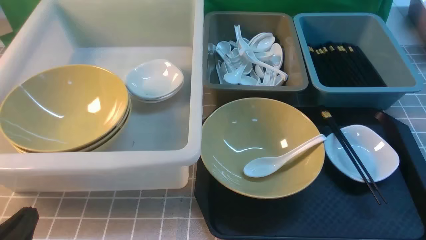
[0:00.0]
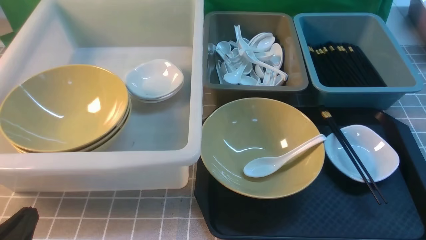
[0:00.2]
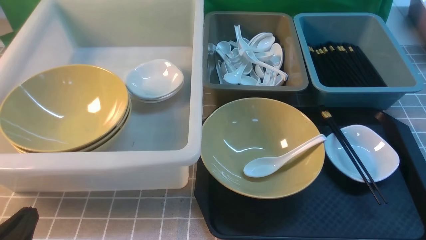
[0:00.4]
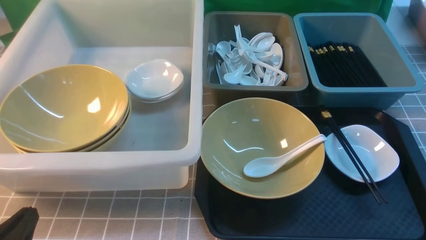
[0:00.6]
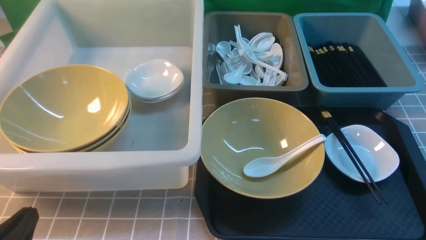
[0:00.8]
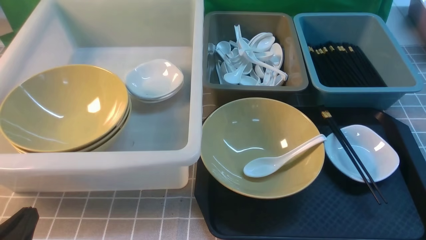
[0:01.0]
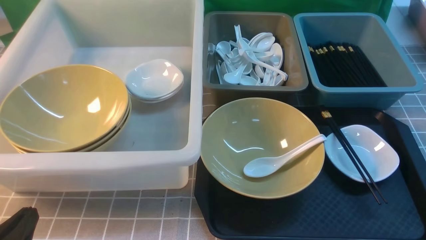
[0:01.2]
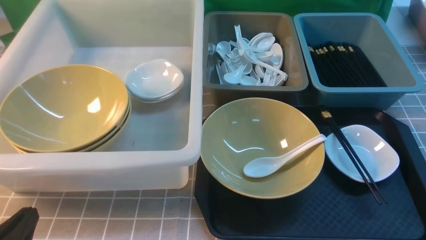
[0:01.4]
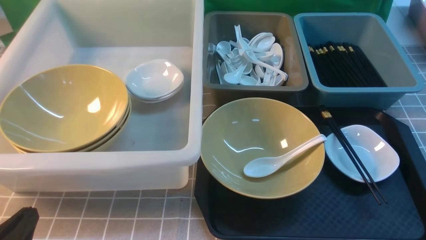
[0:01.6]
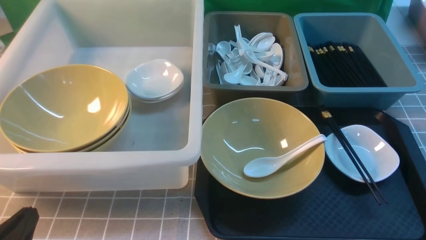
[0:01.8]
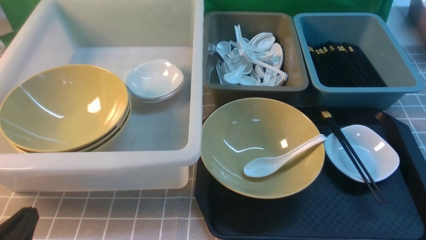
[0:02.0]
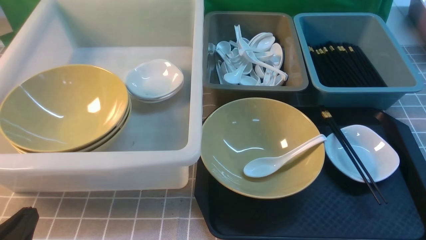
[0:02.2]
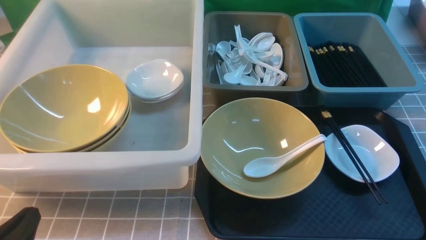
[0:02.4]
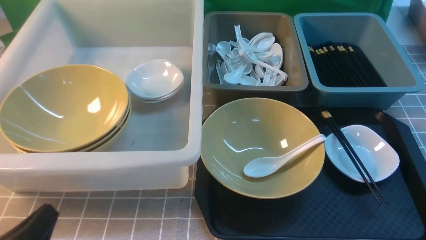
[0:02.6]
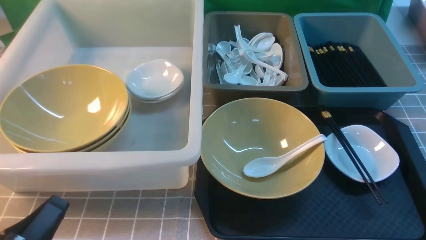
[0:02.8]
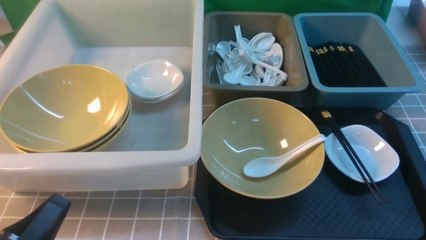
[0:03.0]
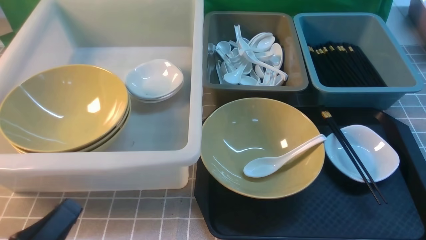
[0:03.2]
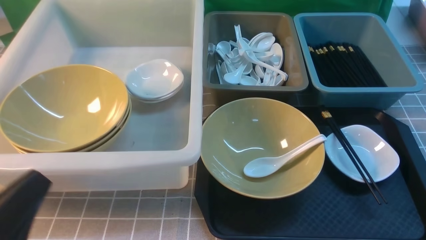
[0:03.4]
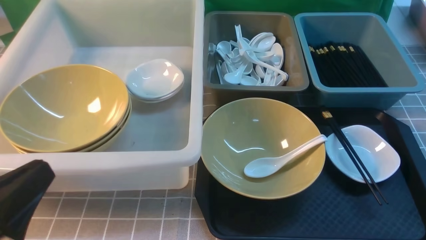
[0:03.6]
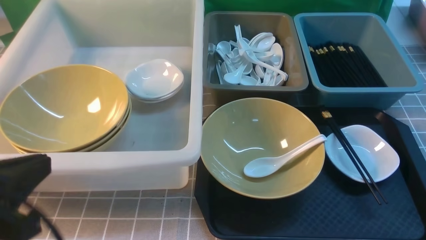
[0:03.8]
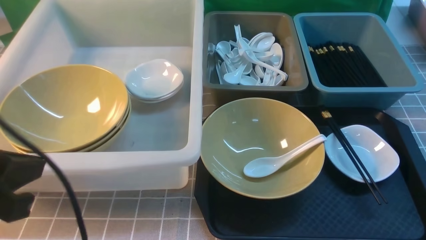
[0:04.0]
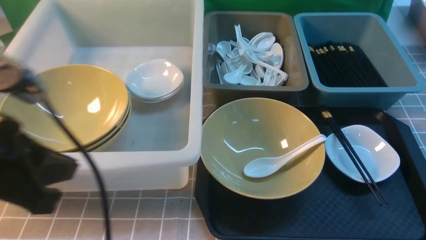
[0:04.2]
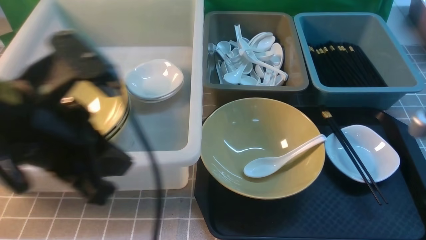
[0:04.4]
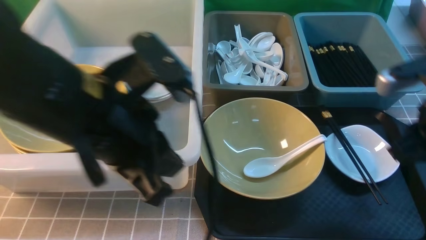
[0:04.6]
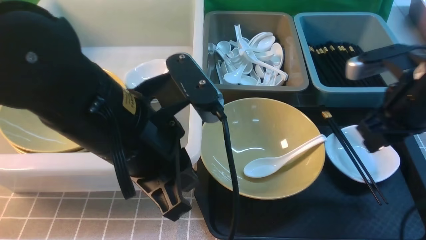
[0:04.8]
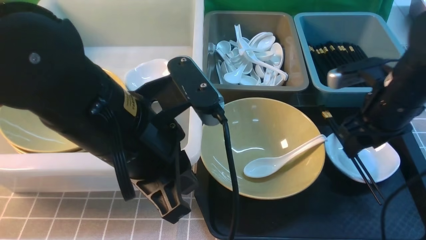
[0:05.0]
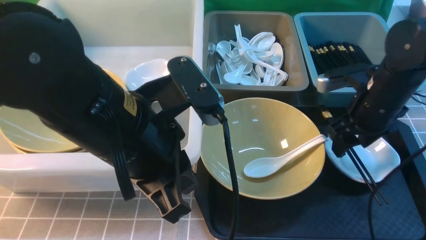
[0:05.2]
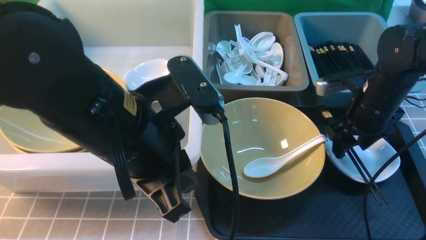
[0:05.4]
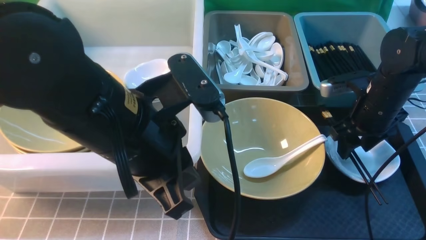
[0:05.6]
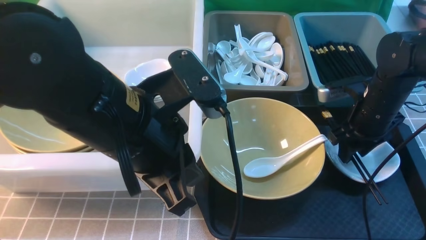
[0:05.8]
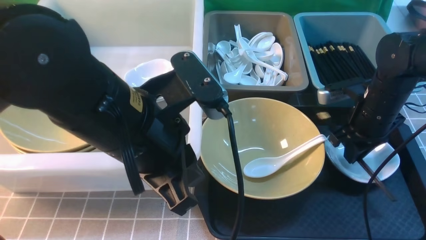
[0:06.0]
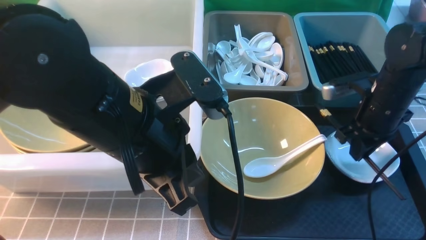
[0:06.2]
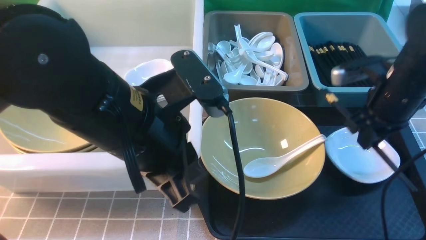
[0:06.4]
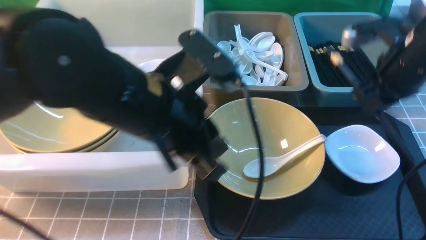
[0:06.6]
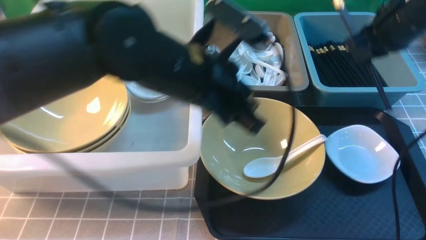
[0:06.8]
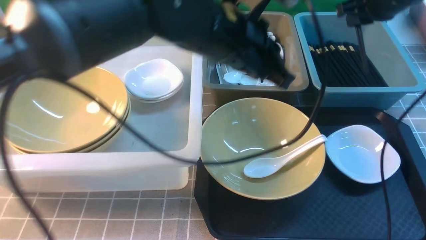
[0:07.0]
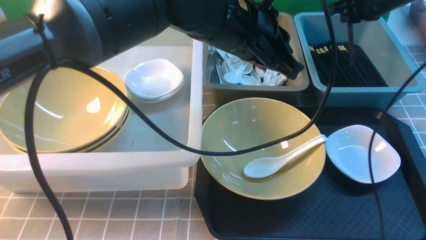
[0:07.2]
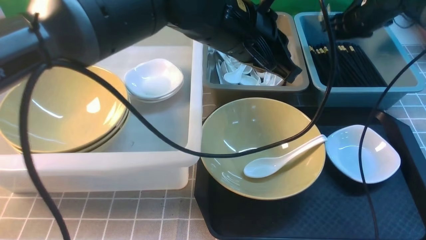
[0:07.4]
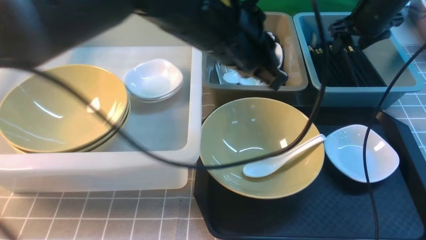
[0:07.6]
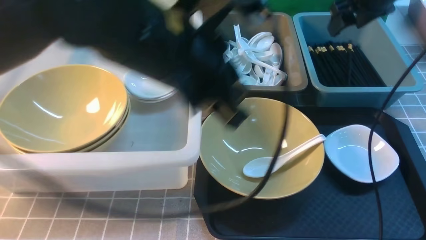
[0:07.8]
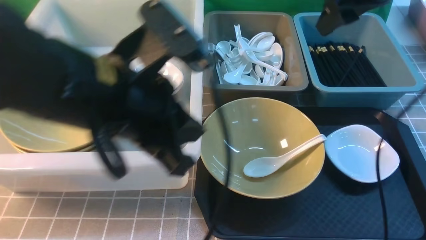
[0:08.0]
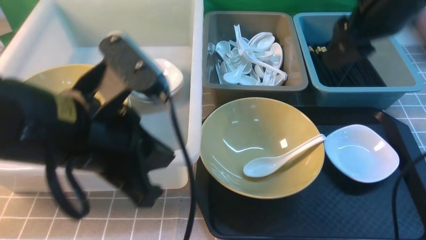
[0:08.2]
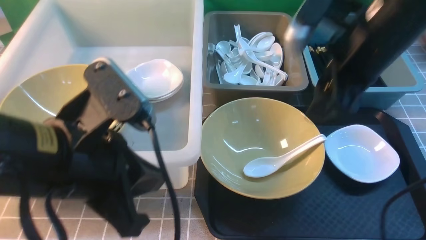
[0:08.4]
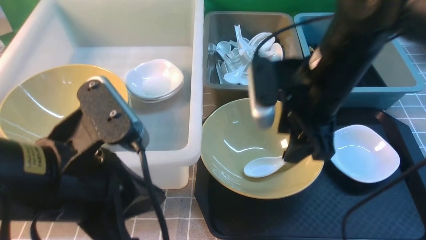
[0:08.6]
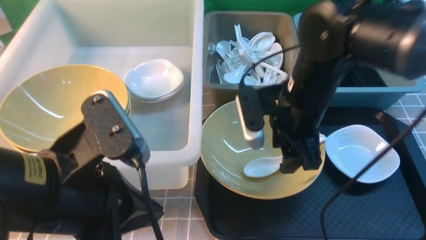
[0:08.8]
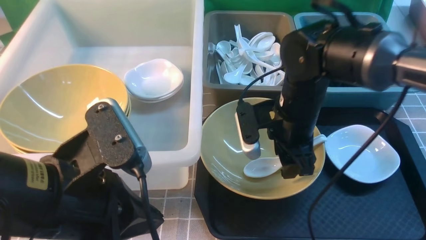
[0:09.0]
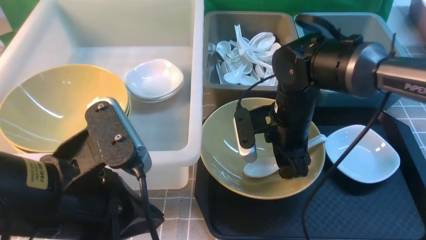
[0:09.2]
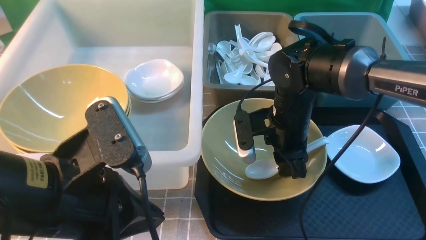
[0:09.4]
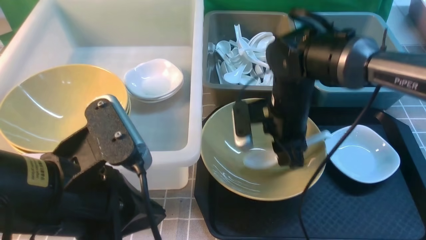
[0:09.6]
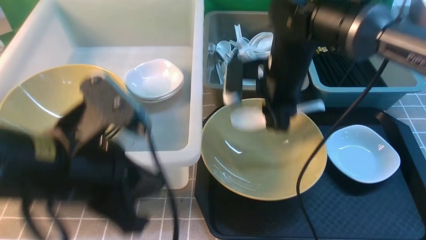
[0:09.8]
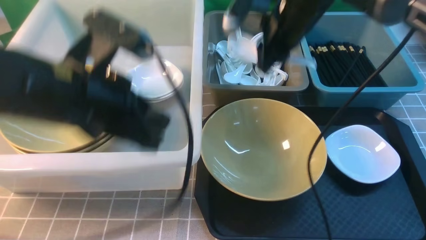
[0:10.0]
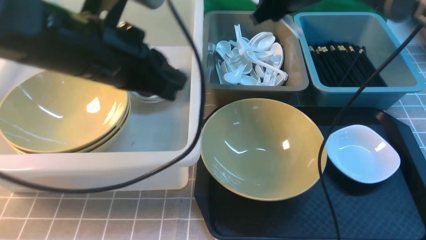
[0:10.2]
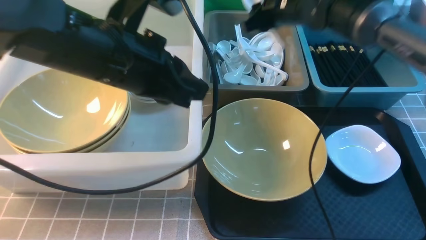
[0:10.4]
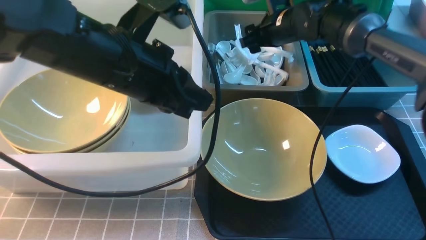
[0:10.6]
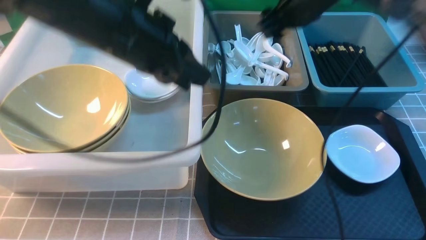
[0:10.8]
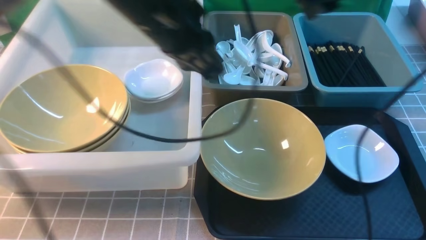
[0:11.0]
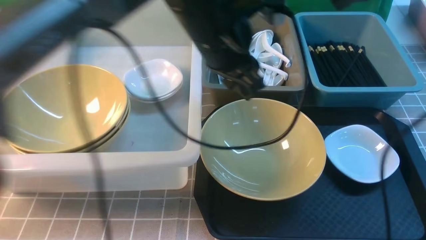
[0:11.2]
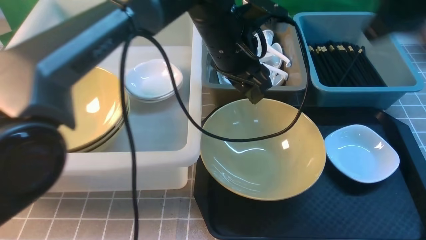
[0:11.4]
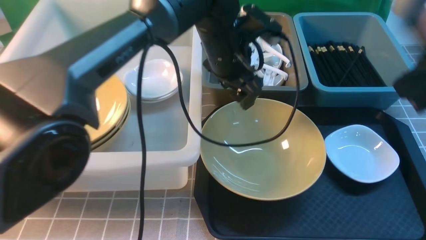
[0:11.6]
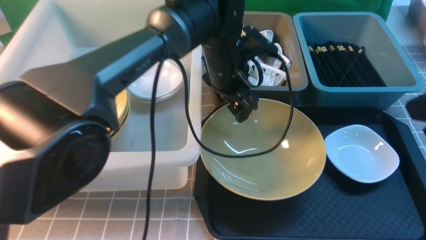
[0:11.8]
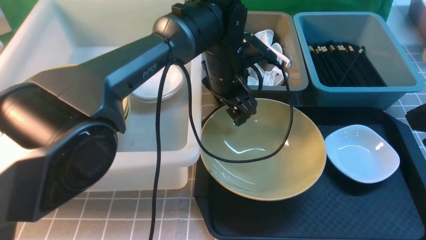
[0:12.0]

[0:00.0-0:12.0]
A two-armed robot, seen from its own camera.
Task of the whole recording: on grey table put chopsticks spoon bowls plates into blue grey white boxes.
Step, 0:00.0 to 0:06.2: use the right arm to grab the chopsticks.
Step, 0:06.4 to 0:07.8: use the right arm to put the chopsticks into the small storage box on the right.
Step, 0:08.0 to 0:10.0: use the right arm to grab the soup spoon in the middle.
Step, 0:10.2 to 0:10.8: use the right arm to put the soup spoon into the small storage box in the middle.
0:00.0 to 0:01.6: Both grippers stay put.
0:03.0 to 0:04.4: The right gripper is displaced forward and upward by some 20 cm, and closes up. The left gripper moves upward, forward and to the right, some 20 cm.
0:04.4 to 0:06.0: The left gripper heads to the right, covering roughly 5 cm; the right gripper shifts approximately 20 cm forward and downward, and opens, then closes once more.
0:06.0 to 0:07.6: The right gripper travels forward and upward by some 20 cm, and opens its fingers. The left gripper is displaced forward and to the right by some 10 cm.
0:07.6 to 0:09.0: The right gripper goes roughly 25 cm to the left, backward and downward, while the left gripper heads backward, to the left and downward, covering approximately 20 cm.
0:09.0 to 0:10.4: The left gripper heads forward, covering roughly 15 cm, while the right gripper travels forward and upward by some 20 cm, and closes, then reopens.
0:10.4 to 0:12.0: The left gripper is displaced forward, to the right and downward by some 20 cm, and opens up, while the right gripper goes roughly 30 cm backward, and closes up.

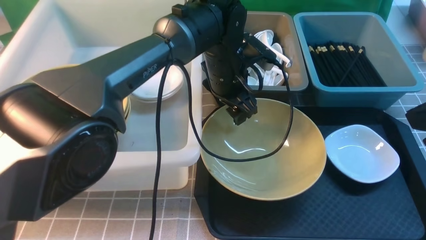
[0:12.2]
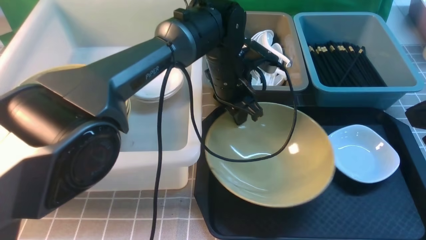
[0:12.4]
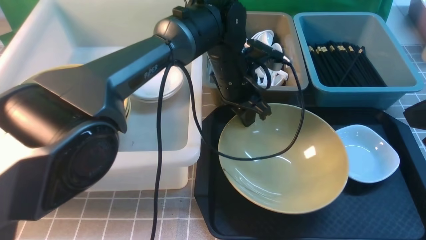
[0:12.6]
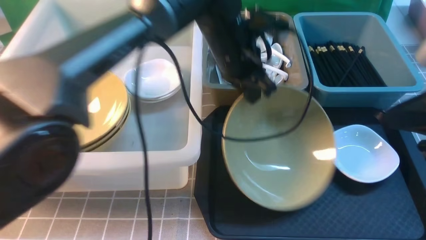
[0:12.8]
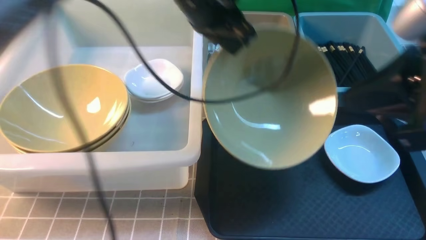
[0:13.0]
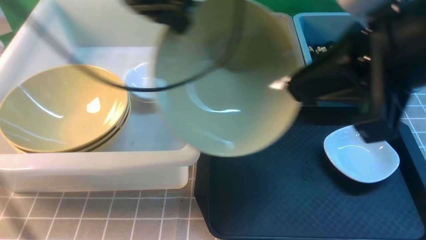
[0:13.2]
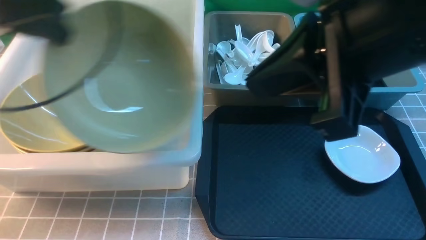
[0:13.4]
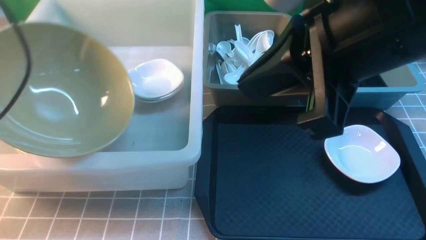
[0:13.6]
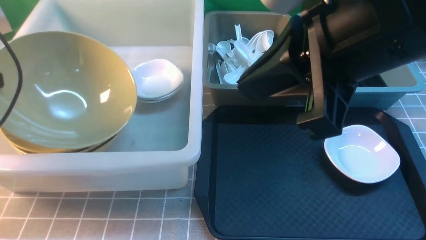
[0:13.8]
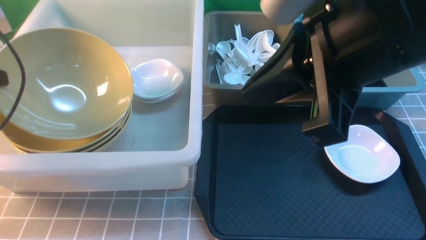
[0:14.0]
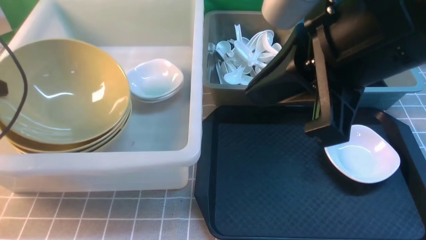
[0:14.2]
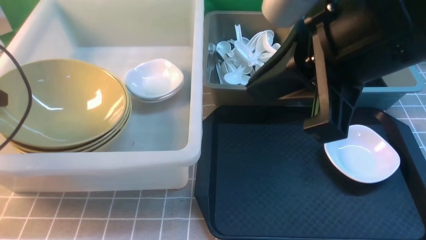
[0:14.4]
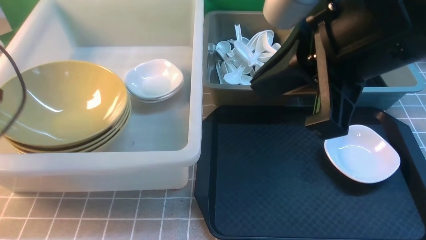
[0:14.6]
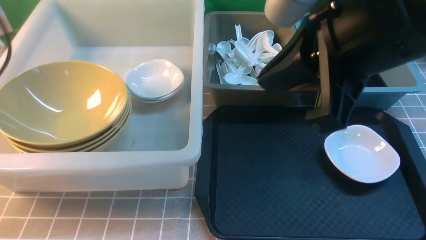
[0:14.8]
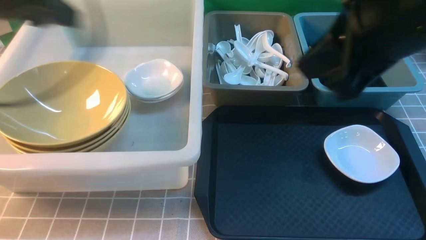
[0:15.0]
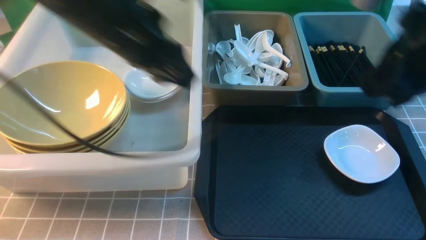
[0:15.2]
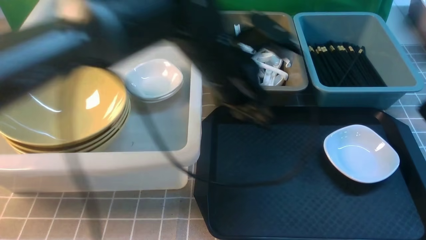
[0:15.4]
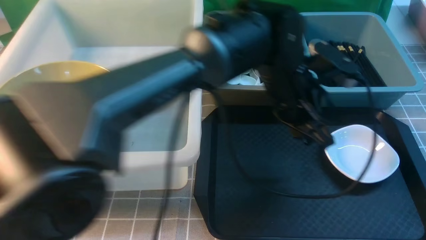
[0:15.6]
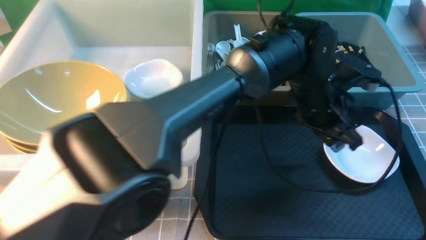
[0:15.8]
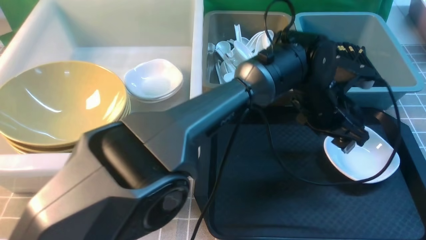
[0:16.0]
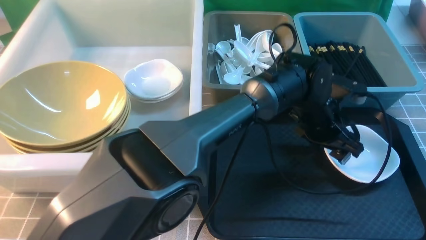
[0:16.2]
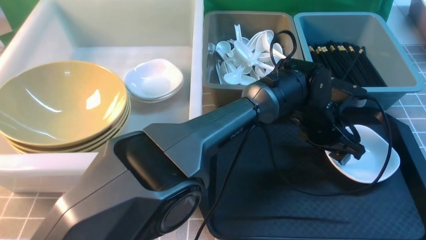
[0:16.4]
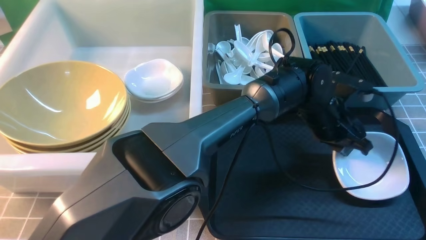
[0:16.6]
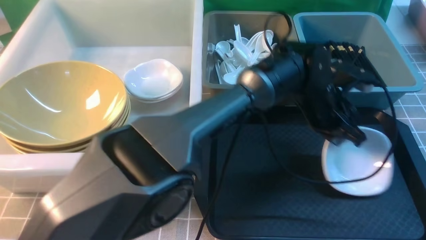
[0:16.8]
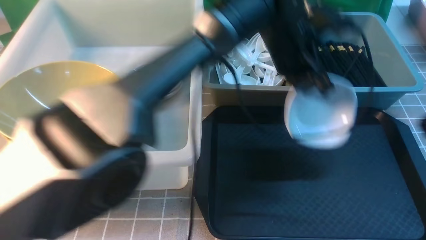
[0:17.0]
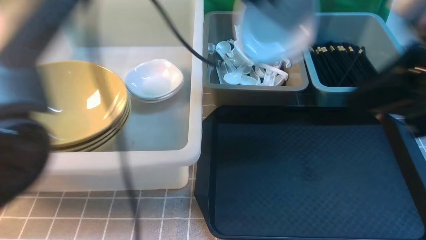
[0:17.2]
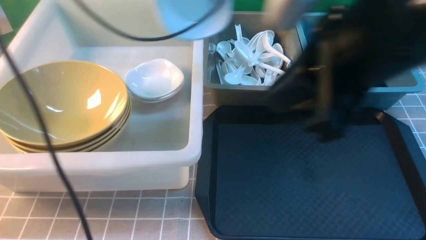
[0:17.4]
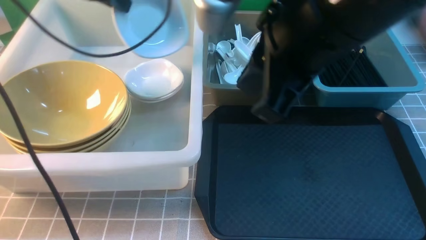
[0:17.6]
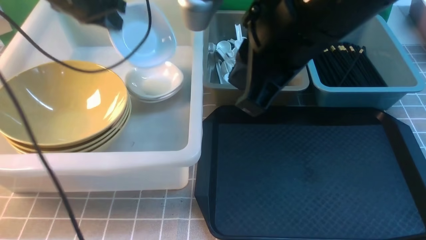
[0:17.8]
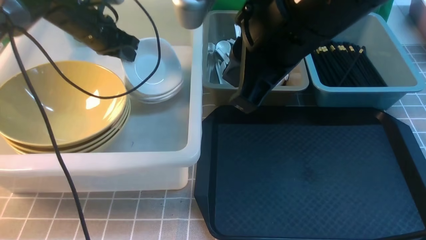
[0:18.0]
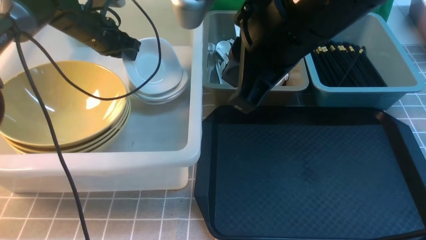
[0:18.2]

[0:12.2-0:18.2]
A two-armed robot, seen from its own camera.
Task of the whole recording: on grey table put chopsticks spoon bowls plates into blue grey white boxes.
Step, 0:13.2 to 0:15.0: use the left arm to put the noodle bowl into the large storage box on the left.
Step, 0:15.2 to 0:17.0: use the left arm to grab the plate.
0:12.2 to 0:13.8: The left gripper travels to the left by some 40 cm, and closes up. The right gripper moves to the left and upward, some 15 cm.
0:13.8 to 0:15.2: The right gripper travels to the right by about 10 cm, while the left gripper moves to the right, about 25 cm, and opens up.
0:15.2 to 0:16.6: The left gripper travels to the right and downward by some 30 cm, and opens, then closes again; the right gripper goes some 10 cm backward and to the right.
0:16.6 to 0:18.2: The right gripper goes some 25 cm to the left and forward. Meanwhile the left gripper moves to the left, some 40 cm.
